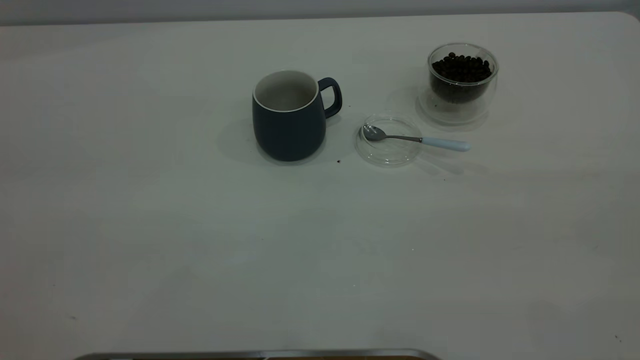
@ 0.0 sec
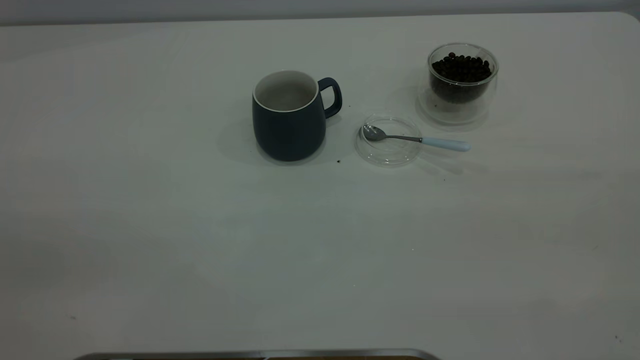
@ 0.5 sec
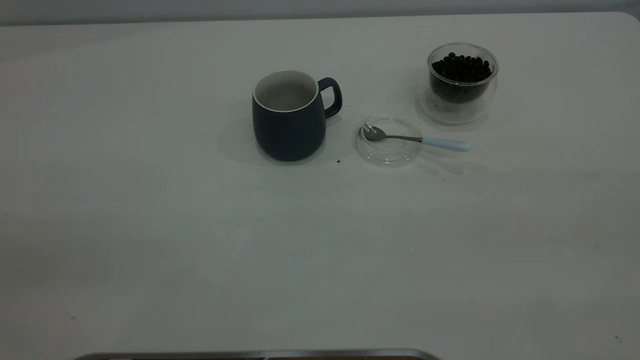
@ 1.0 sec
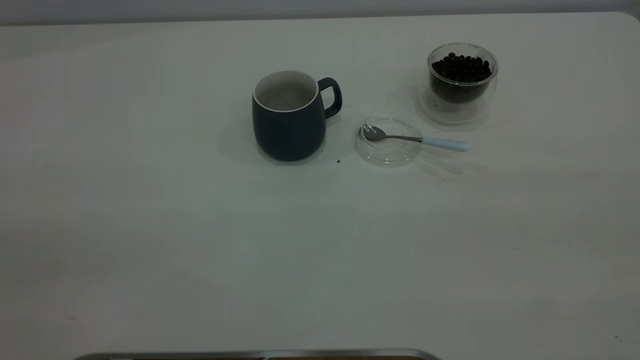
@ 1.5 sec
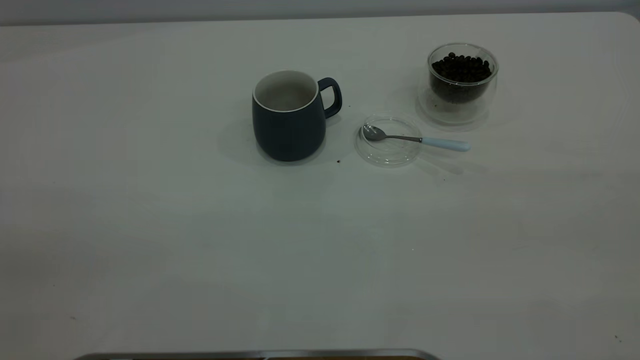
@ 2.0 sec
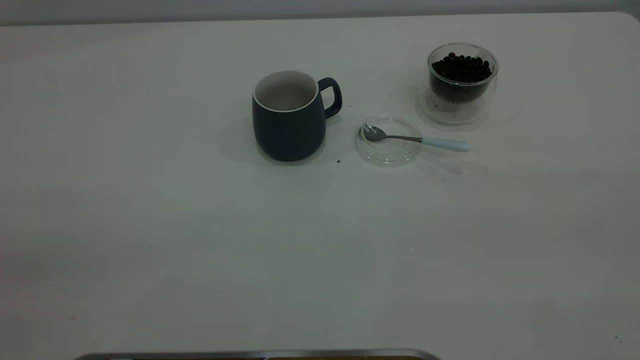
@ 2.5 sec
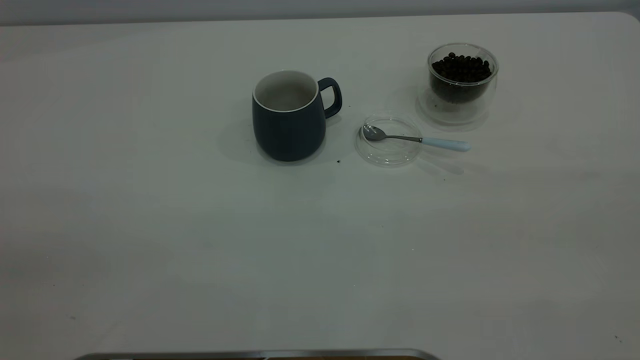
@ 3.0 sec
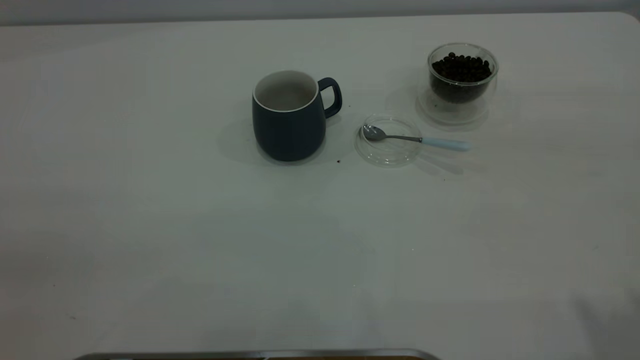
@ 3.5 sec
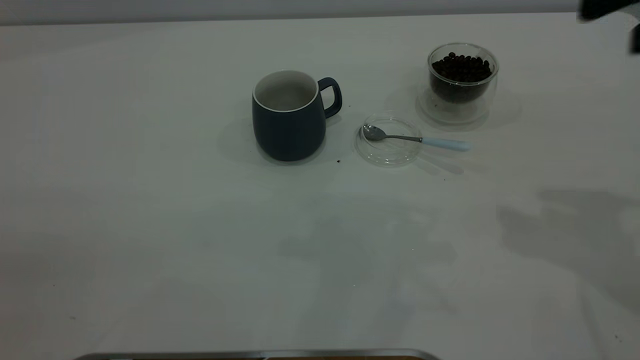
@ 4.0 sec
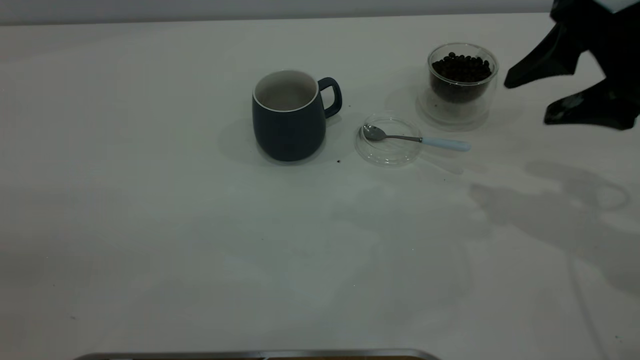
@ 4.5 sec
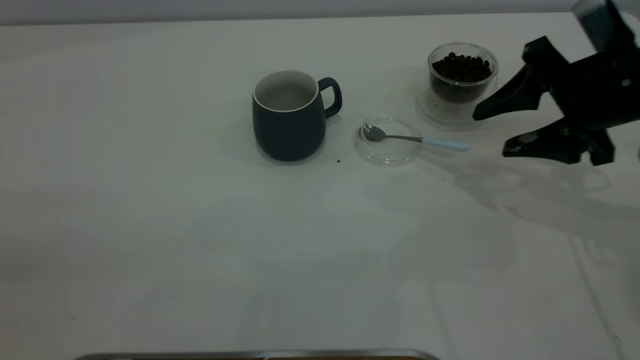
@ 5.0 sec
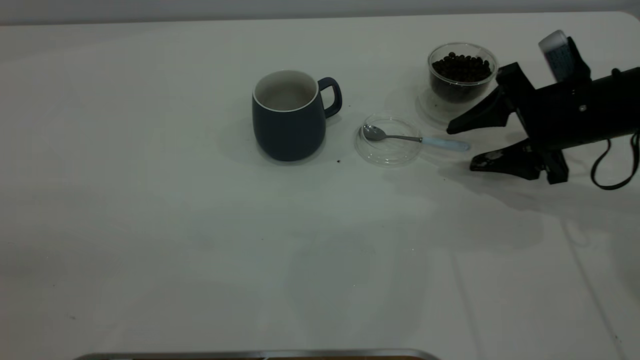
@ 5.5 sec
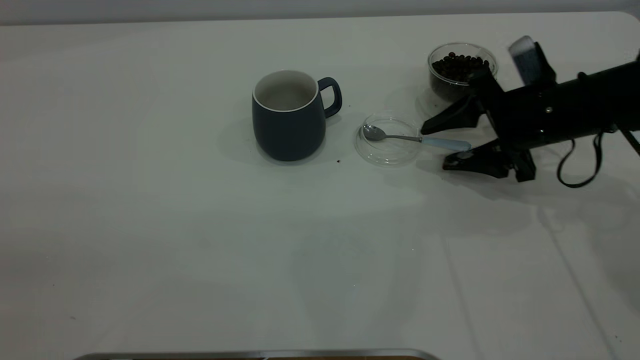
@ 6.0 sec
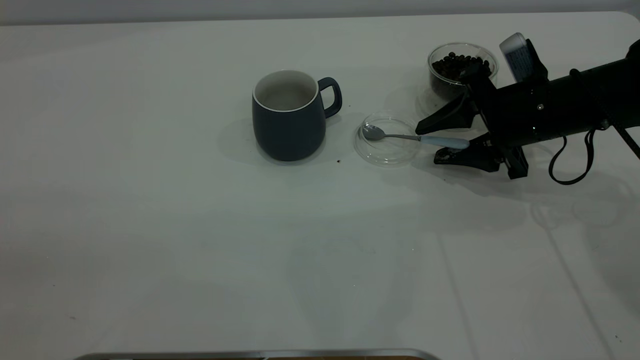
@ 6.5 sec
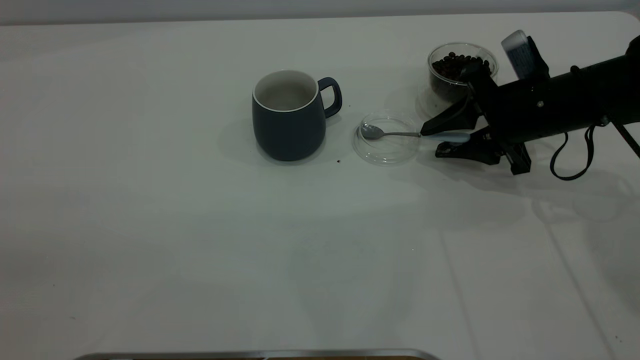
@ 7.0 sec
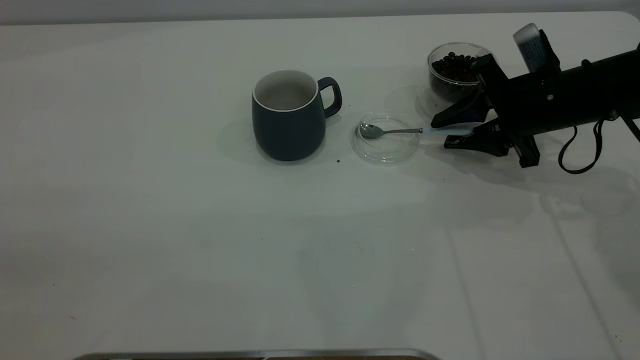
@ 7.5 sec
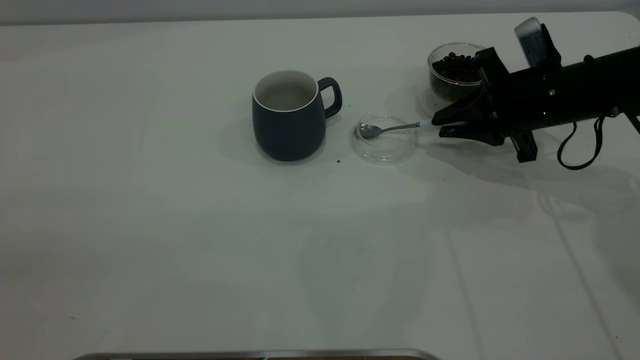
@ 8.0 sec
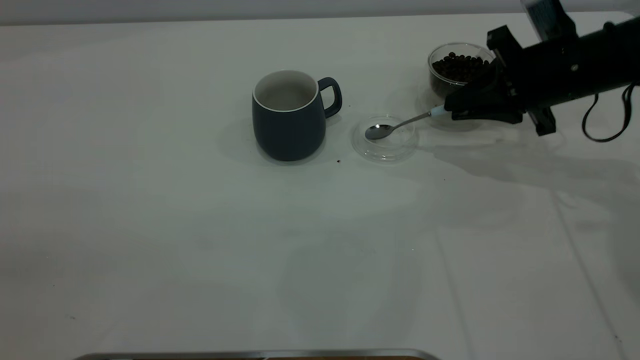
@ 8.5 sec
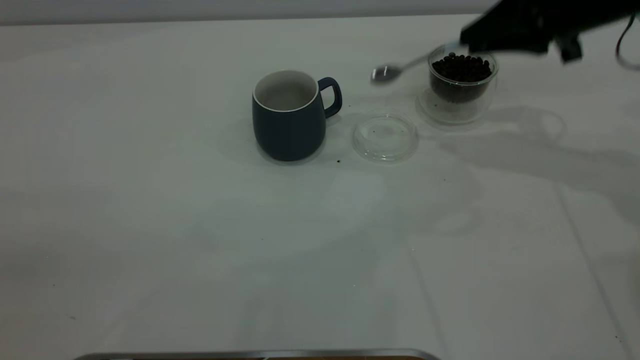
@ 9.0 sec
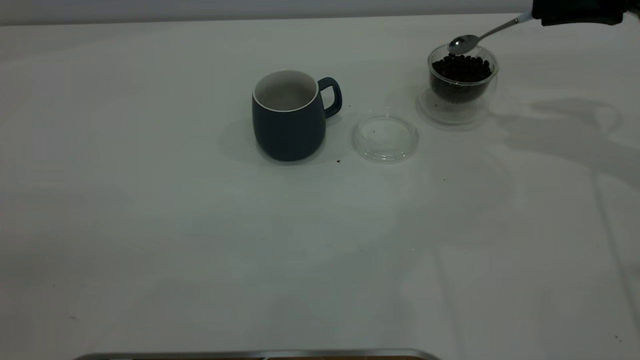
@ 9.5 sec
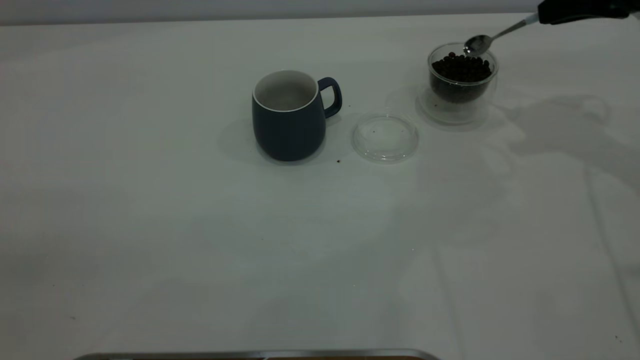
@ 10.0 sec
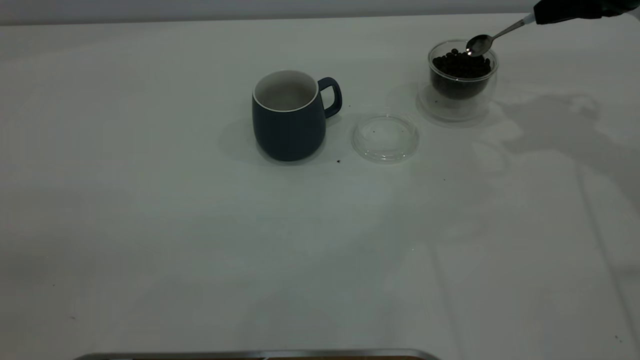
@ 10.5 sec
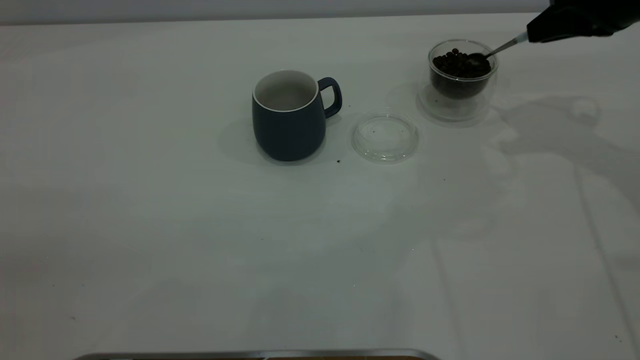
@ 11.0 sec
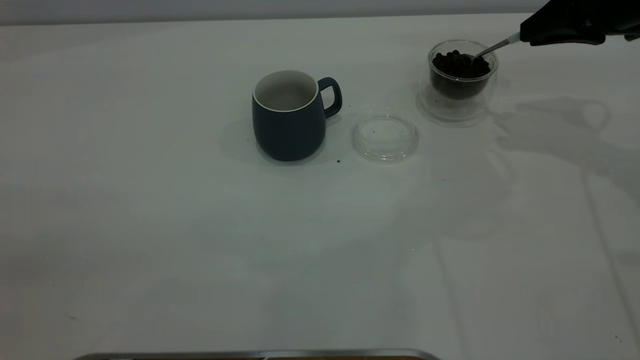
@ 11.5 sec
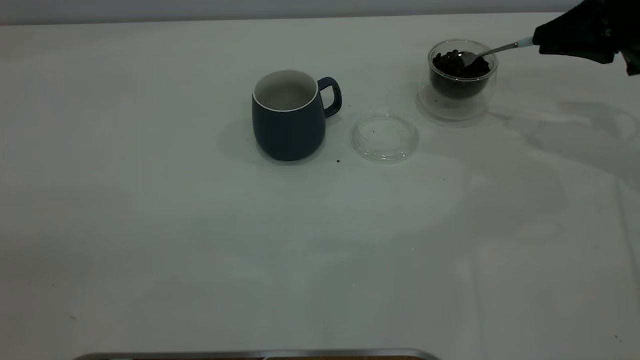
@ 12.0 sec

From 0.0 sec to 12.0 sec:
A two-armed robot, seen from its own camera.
Task of the whole recording: the left gripper place the grey cup in the center of the table, the right gripper take the blue spoon from the cup lid and scoop out the coffee beans from the coffee cup and put them into the grey cup, the right gripper put the spoon back into the cup lid.
Step, from 0.0 sec to 8.5 sec: Pick up the spoon.
From 4.0 sec to 6.0 sec: The right gripper shifts roughly 25 cm downward and forward.
From 6.0 sec to 8.0 sec: The right gripper closes its fingers.
From 8.0 sec to 10.0 sec: The right gripper goes about 15 cm upward and to the right.
From 10.0 sec to 12.0 sec: The right gripper goes some 5 cm downward.

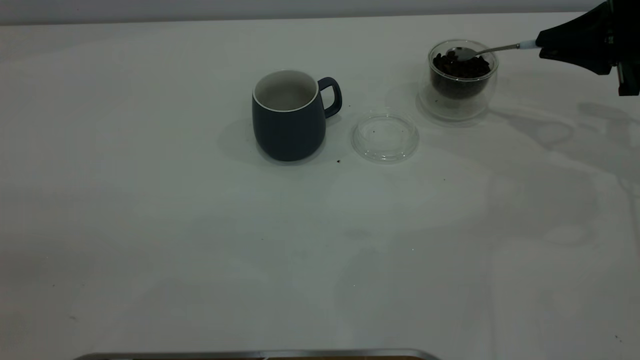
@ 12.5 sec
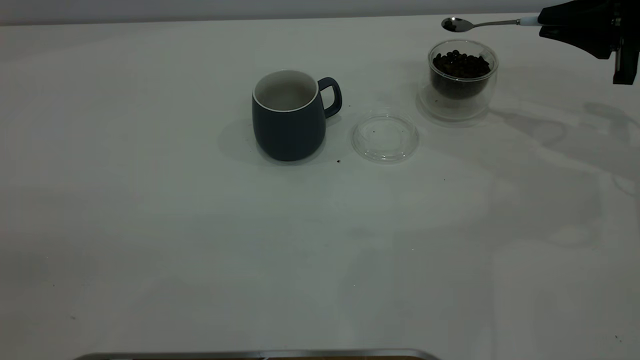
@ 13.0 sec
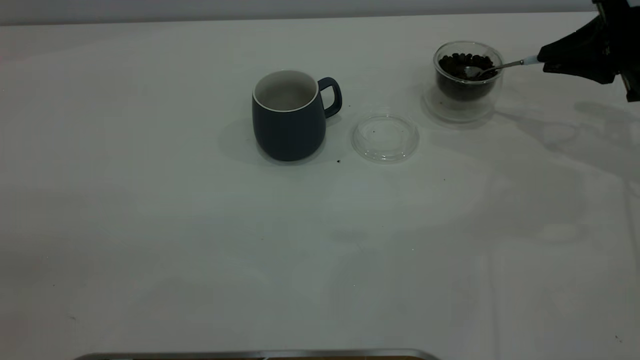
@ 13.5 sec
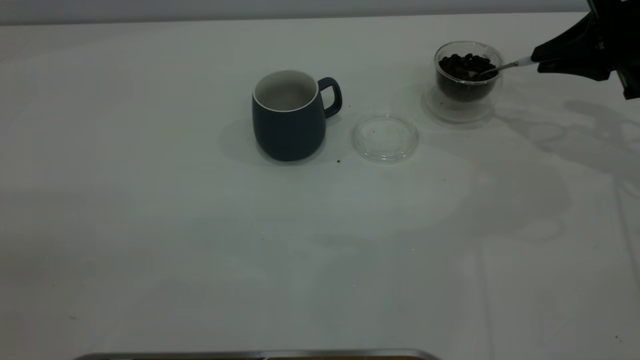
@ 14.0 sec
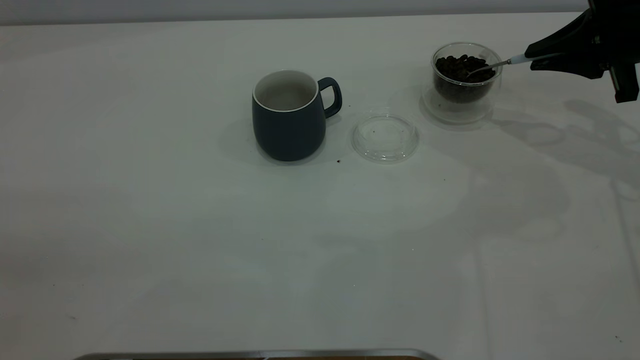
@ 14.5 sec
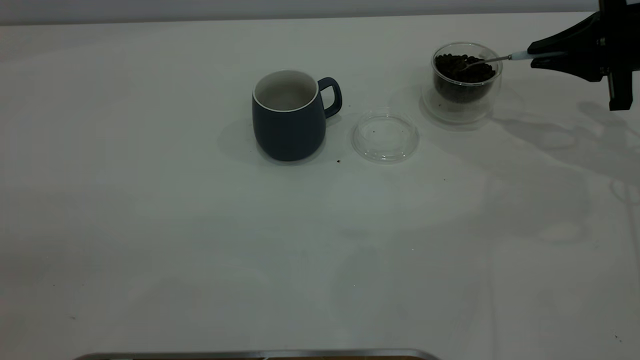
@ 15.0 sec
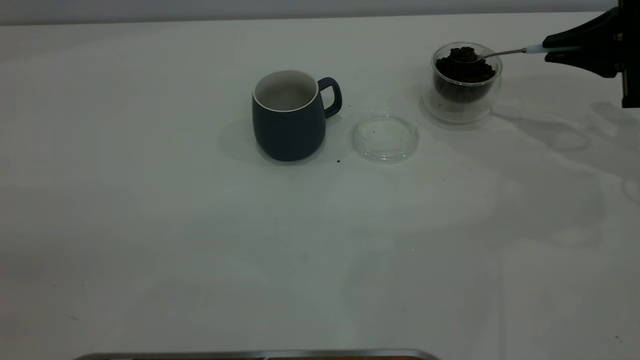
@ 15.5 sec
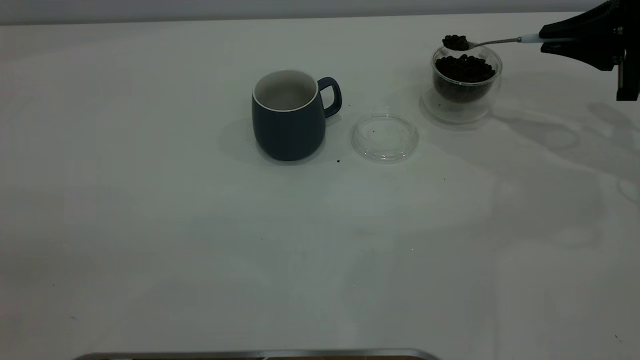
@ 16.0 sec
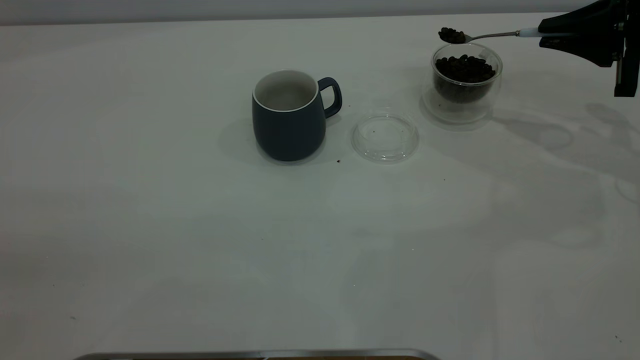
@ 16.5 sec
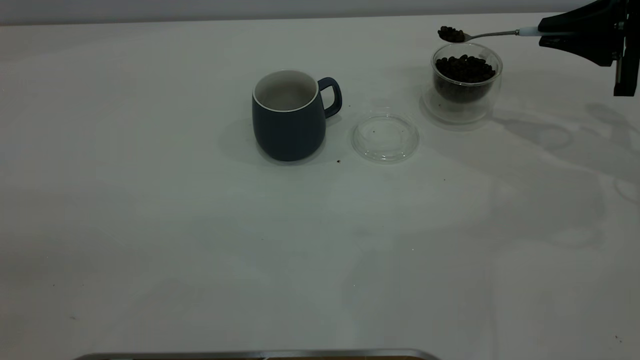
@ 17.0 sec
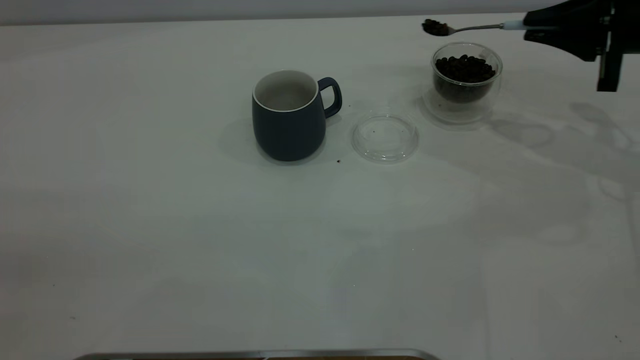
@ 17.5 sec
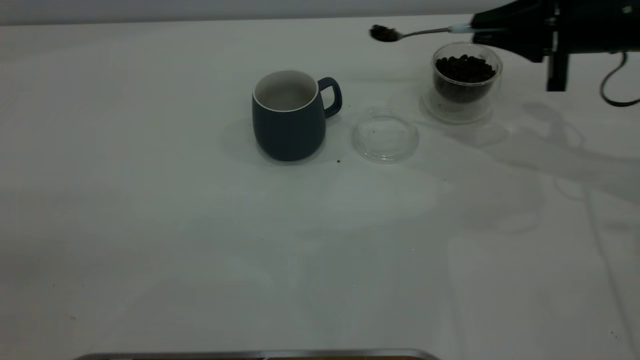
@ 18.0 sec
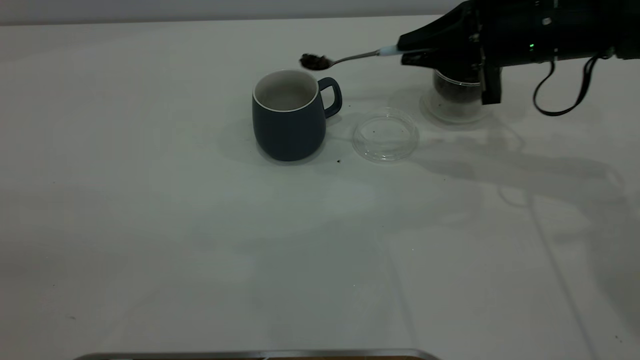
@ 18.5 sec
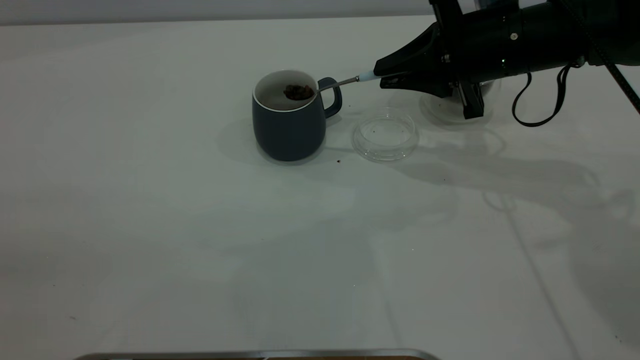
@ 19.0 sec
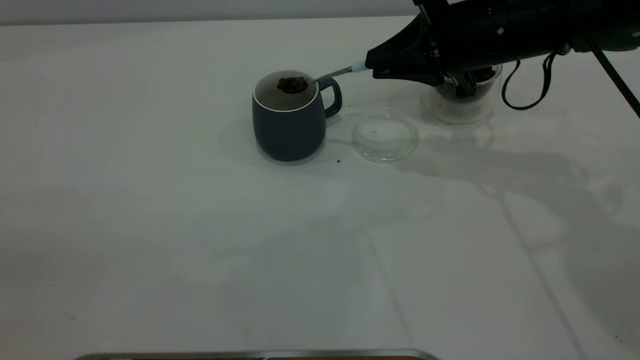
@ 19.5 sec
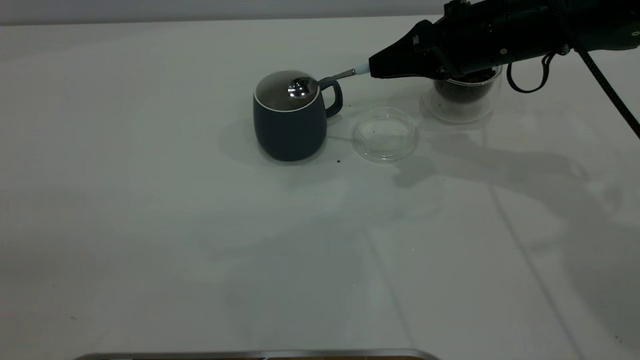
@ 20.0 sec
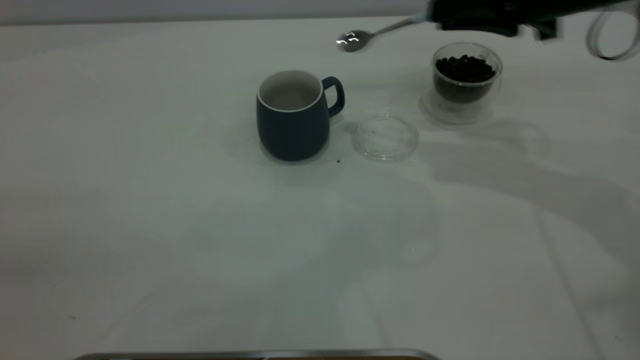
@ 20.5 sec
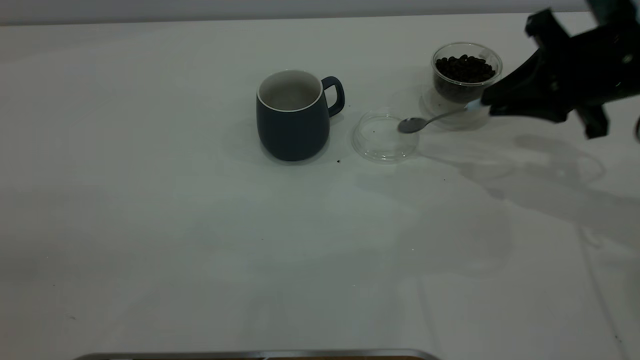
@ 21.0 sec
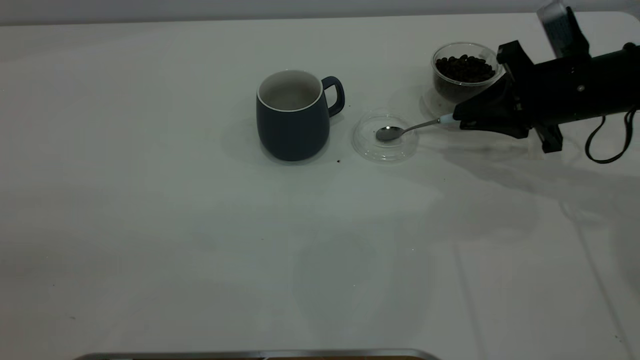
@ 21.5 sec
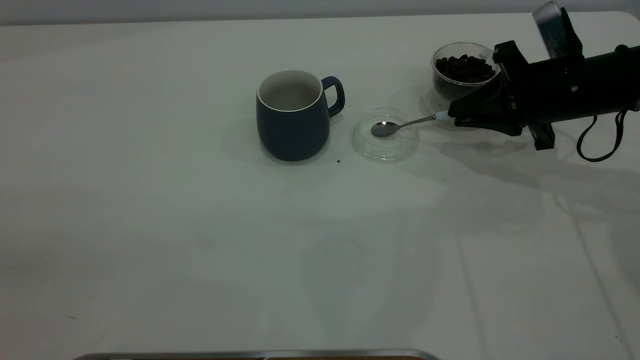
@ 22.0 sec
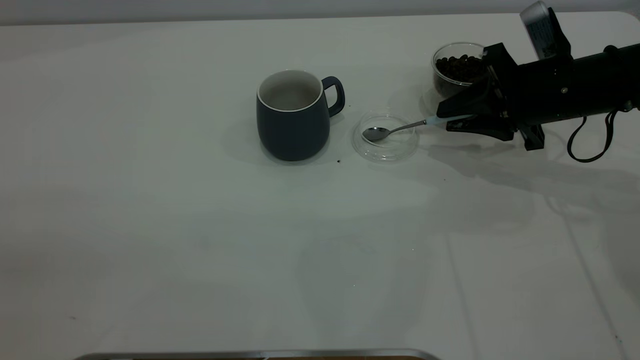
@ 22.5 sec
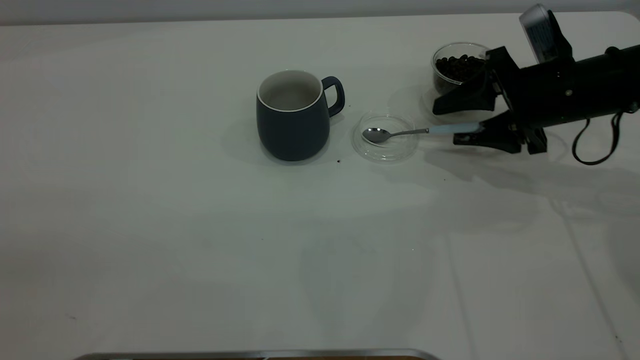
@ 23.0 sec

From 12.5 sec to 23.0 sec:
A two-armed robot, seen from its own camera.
Task of the whole recording: the left gripper place the grey cup in the center of the table, the right gripper take the blue spoon from the cup lid and scoop out the coffee beans from the coffee cup and put them into the grey cup, the right gripper put the spoon back into the cup lid.
Step, from 12.5 sec to 20.0 sec: Scoop a spoonful of beans into the cup.
From 12.5 sec to 16.5 sec: There are only small adjustments of the grippers.
From 16.5 sec to 19.0 sec: The right gripper travels to the left by roughly 15 cm.
From 19.0 sec to 21.0 sec: The right gripper travels to the right by about 10 cm.
From 21.0 sec to 23.0 sec: The right gripper goes some 5 cm downward, and opens.
